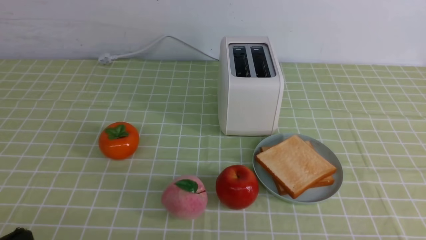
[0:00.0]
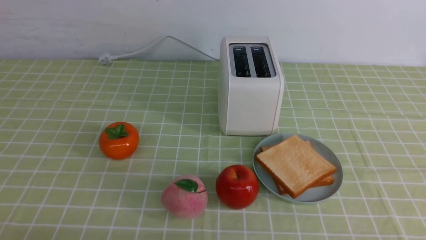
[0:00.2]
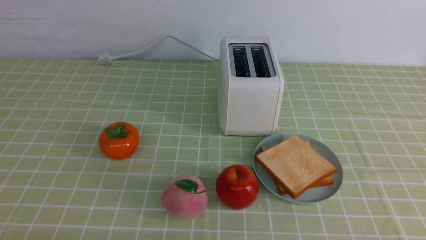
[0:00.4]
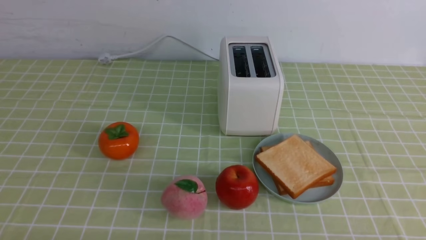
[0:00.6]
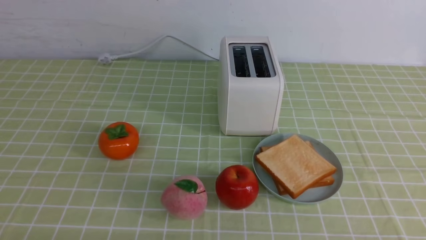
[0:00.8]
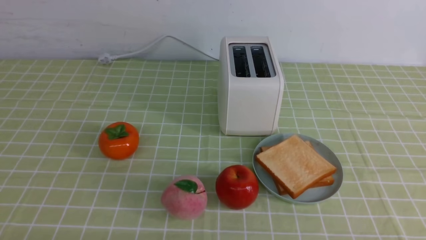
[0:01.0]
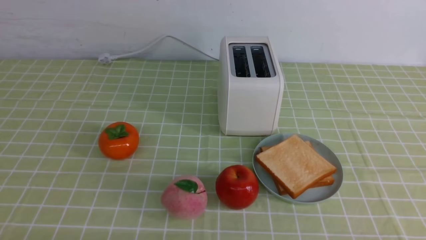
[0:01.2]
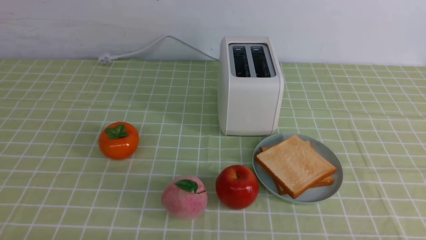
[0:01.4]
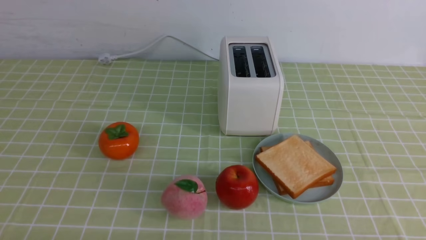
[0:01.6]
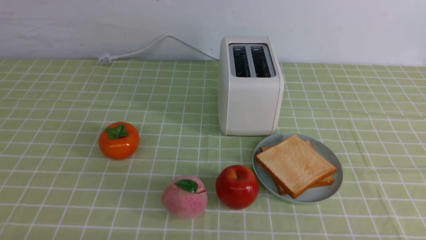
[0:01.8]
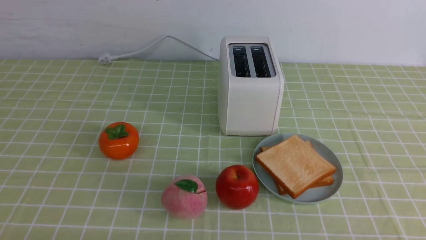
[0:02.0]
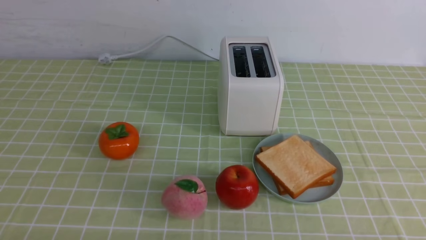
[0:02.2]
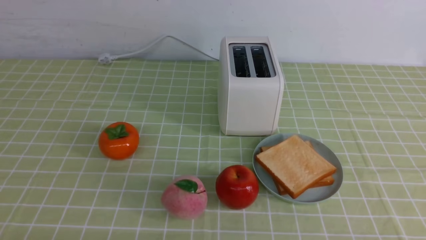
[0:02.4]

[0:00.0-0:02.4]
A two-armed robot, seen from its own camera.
Task of the whole recording: take toasted bread from bread machine on green coffee tablecloth place on plate.
0:01.2 to 0:02.4: Both grippers stay about where they are.

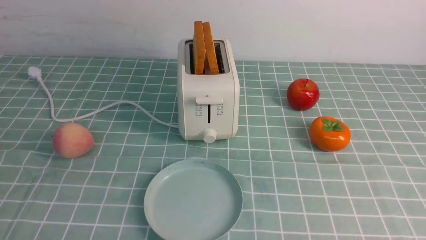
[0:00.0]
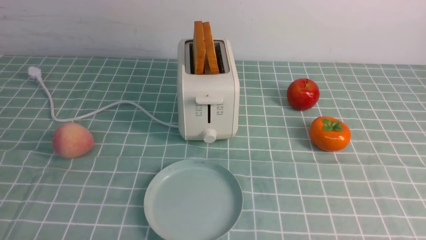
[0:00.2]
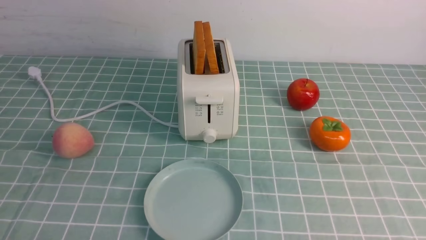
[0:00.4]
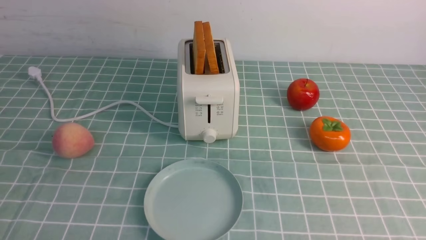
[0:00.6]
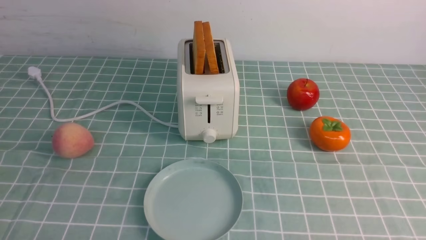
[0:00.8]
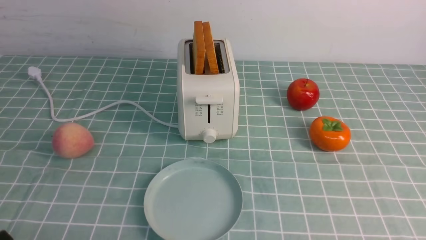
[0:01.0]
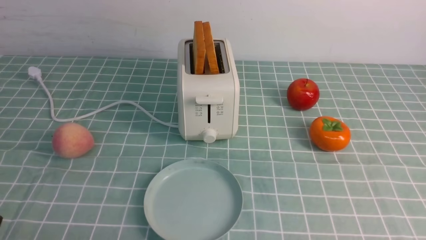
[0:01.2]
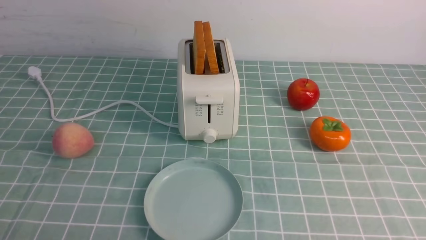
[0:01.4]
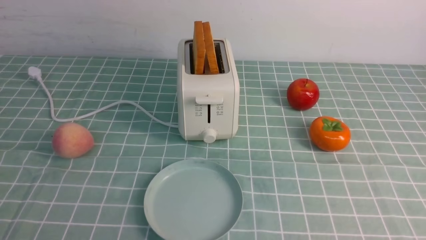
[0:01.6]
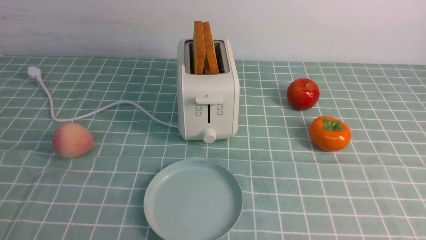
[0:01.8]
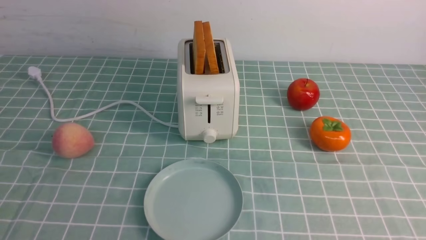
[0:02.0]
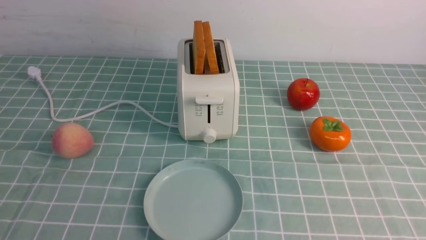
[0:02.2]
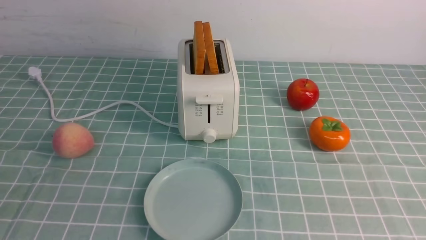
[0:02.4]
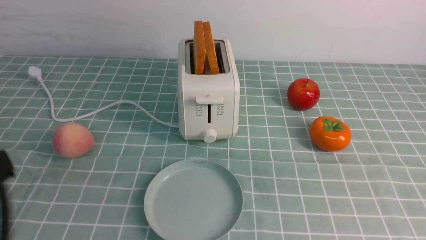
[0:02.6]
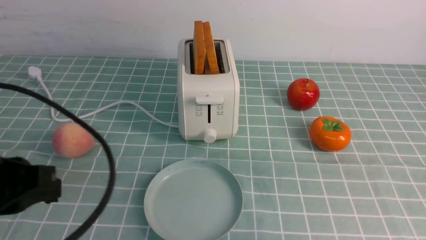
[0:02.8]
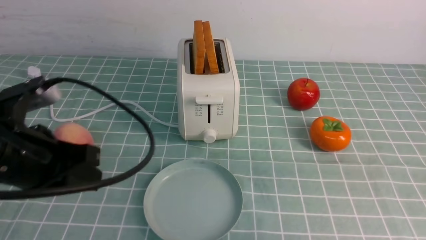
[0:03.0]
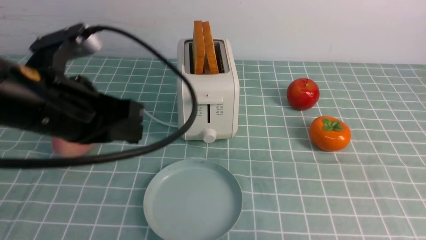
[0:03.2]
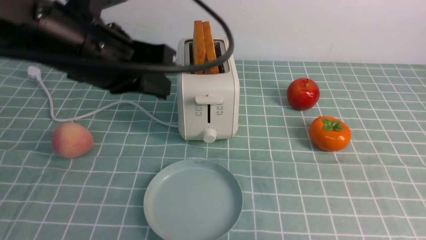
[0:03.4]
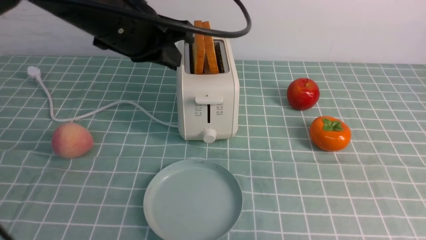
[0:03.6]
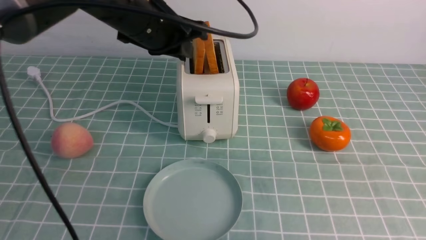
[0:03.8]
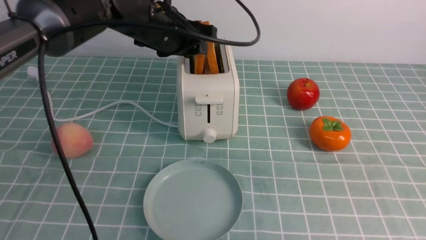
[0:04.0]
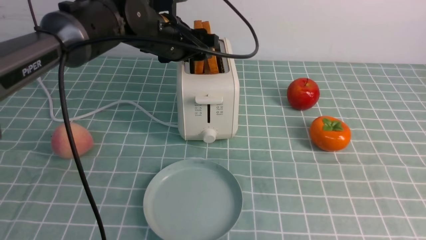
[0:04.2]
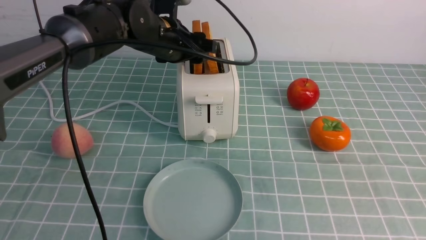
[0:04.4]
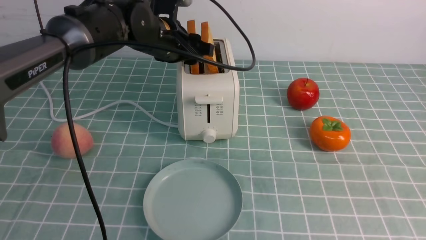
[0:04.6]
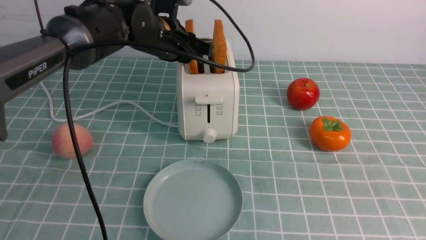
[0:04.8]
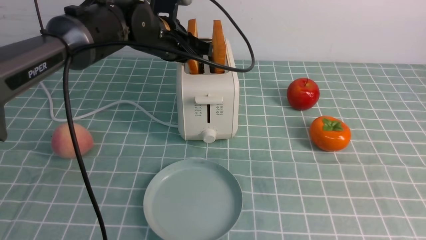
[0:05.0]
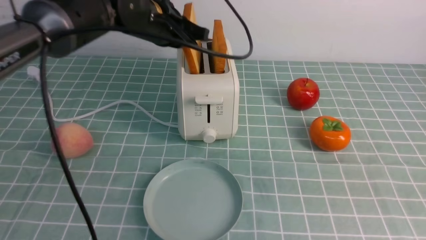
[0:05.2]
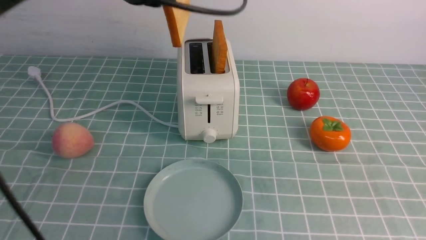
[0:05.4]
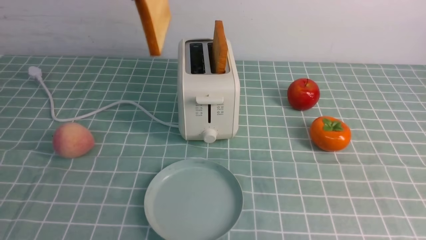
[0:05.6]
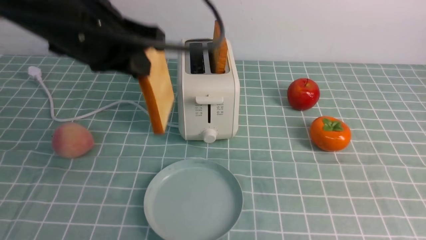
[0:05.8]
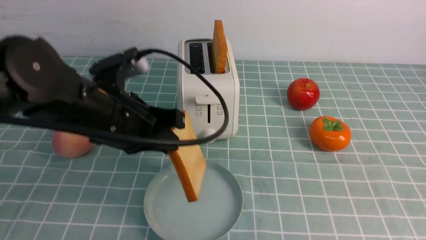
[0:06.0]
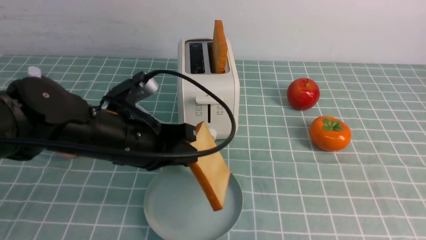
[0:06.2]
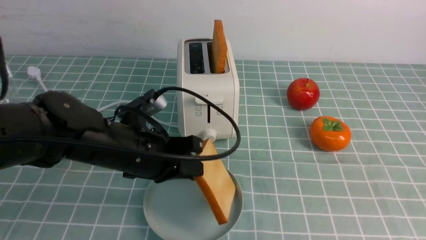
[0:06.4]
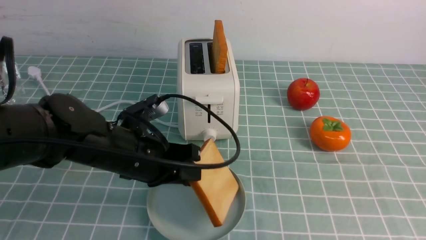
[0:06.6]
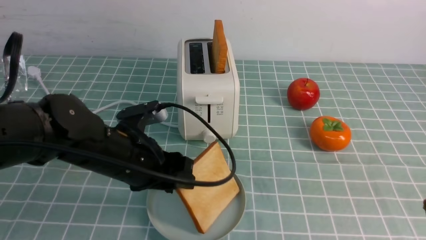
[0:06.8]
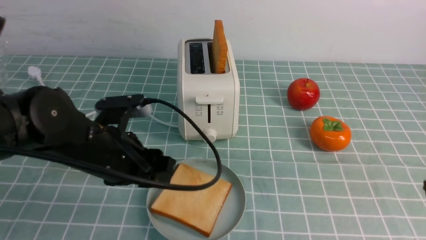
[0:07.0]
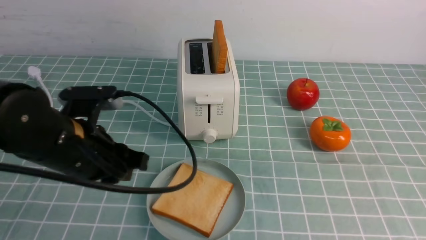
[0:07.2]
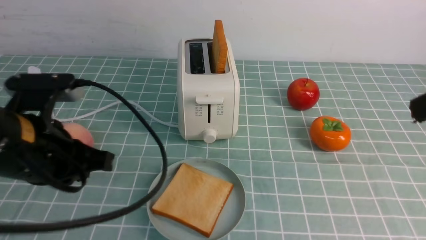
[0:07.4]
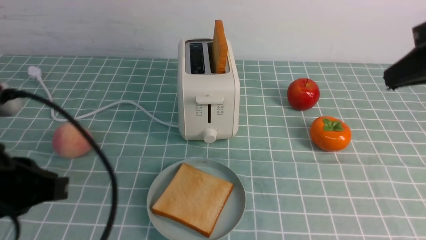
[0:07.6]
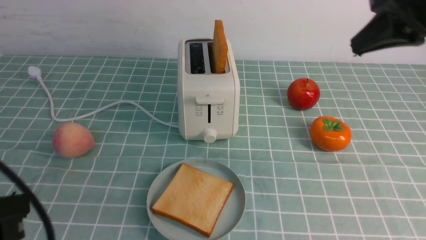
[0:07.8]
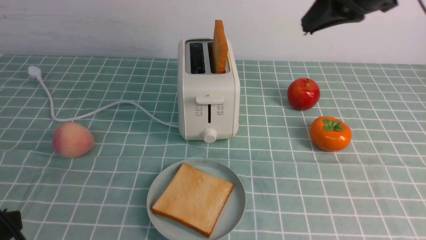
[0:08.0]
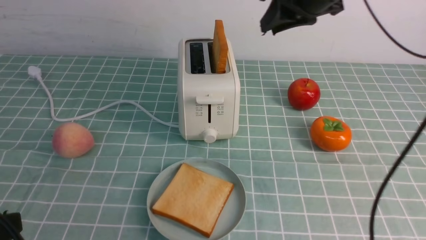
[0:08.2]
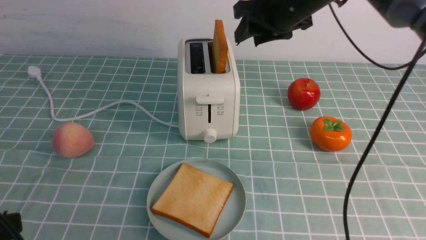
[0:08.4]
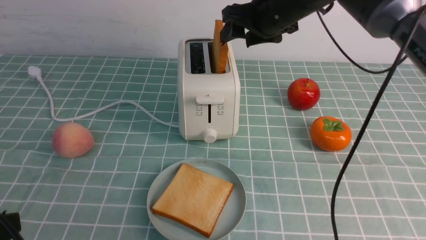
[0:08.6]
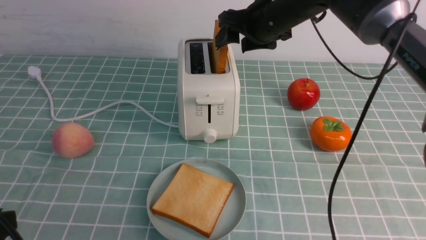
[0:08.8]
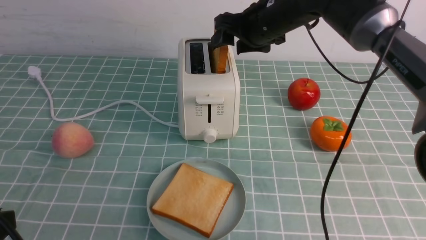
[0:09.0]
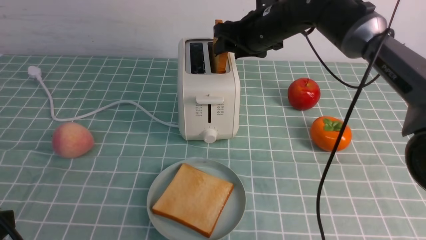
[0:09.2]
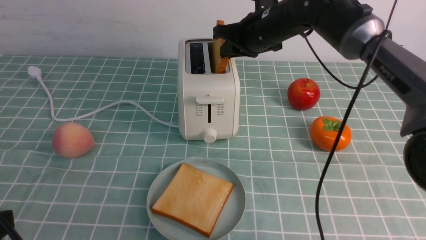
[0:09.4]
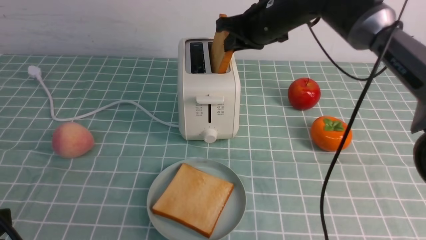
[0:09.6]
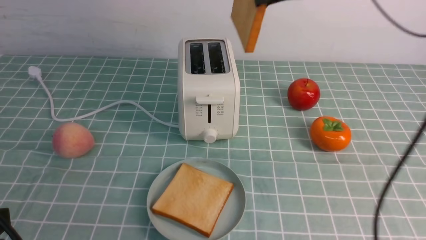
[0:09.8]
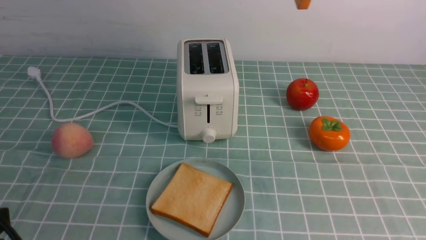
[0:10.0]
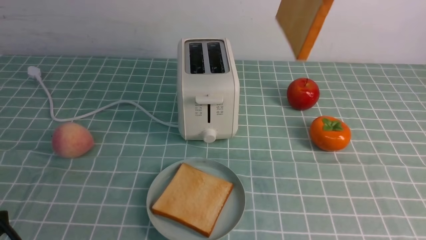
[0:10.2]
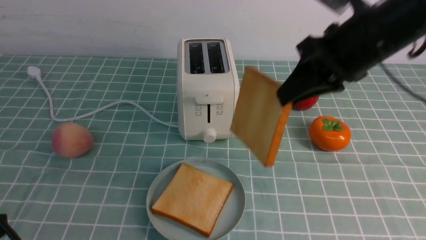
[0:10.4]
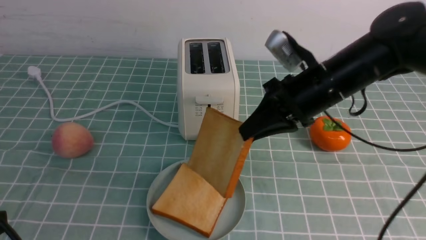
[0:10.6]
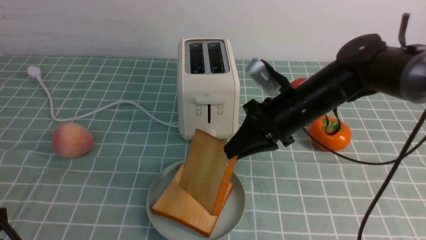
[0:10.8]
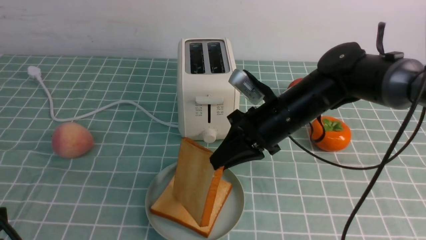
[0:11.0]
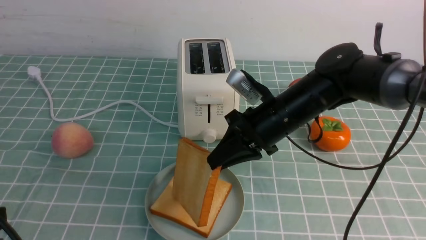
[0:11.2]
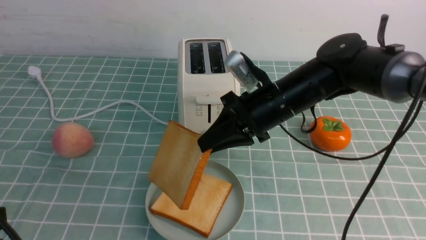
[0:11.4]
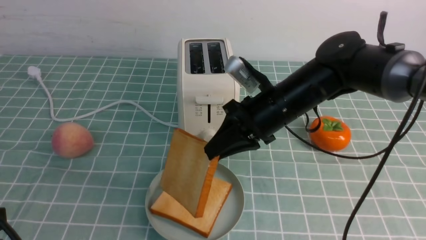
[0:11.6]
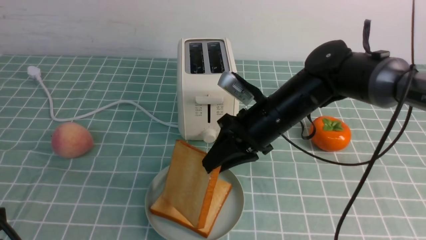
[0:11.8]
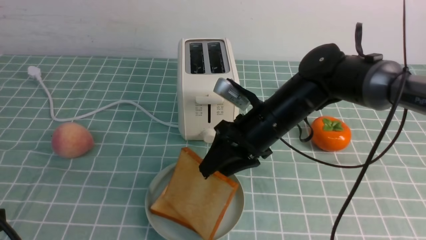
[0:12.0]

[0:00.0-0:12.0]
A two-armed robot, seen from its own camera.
Task of the whole recording: take toasted bread from bread machine on blue coffee table place on plate.
Step, 0:00.0 to 0:05.2: use the left arm to take out a slice of bread.
Step, 0:05.4 to 0:07.0: use the left arm to put a slice of bread into the empty plate.
Step, 0:07.2 to 0:09.6: use the right arm to take out a slice of bread.
0:01.6 to 0:03.0: The left gripper travels forward and upward by about 15 cm, and closes.
0:03.0 to 0:04.4: The left gripper shifts some 30 cm forward and to the right, and opens up.
0:04.4 to 0:06.0: The left gripper is displaced backward by about 15 cm, and closes up.
0:06.0 to 0:07.6: The right gripper travels upward and forward by some 10 cm. The left gripper goes about 15 cm backward and to the left, travels downward and back again, approximately 10 cm each way, and opens, then closes once more.
0:07.6 to 0:09.0: The left gripper shifts about 10 cm backward; the right gripper is displaced forward and to the left by about 30 cm, and opens up.
0:09.0 to 0:10.4: The right gripper moves backward, to the right and upward, some 15 cm, and closes its fingers.
0:10.4 to 0:12.0: The right gripper is displaced downward and to the left by roughly 20 cm, and opens up.

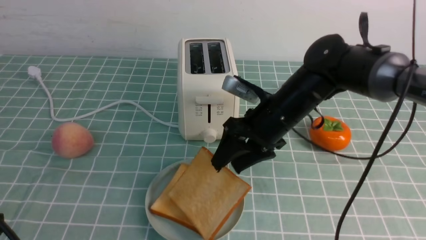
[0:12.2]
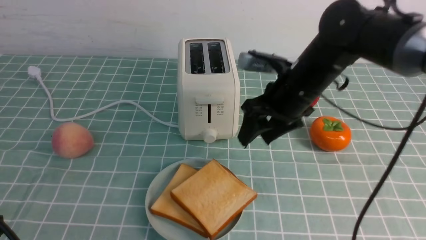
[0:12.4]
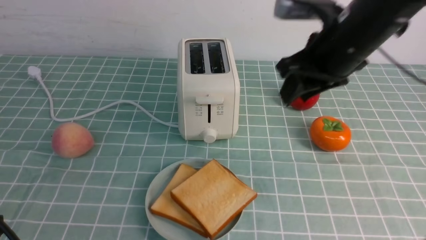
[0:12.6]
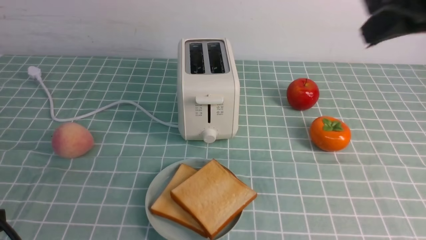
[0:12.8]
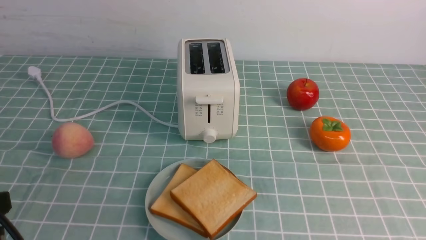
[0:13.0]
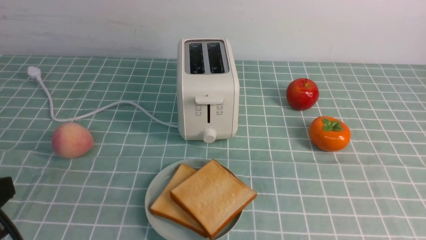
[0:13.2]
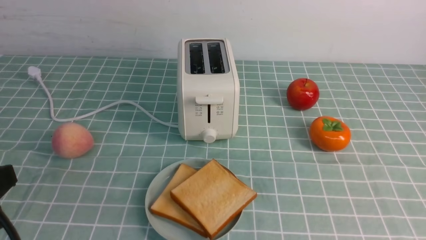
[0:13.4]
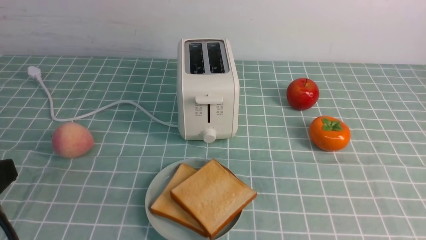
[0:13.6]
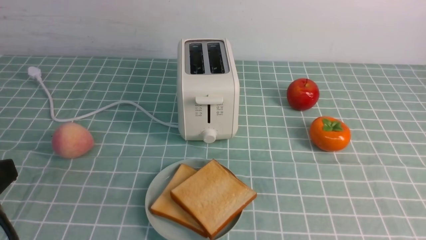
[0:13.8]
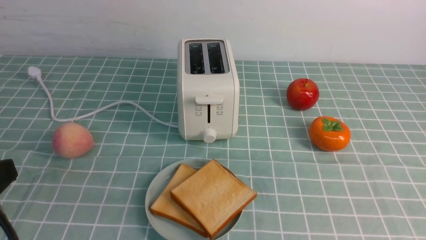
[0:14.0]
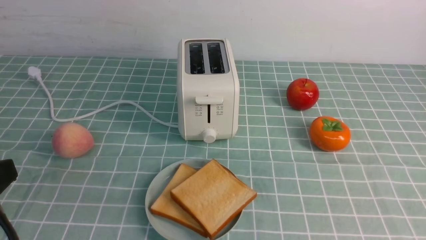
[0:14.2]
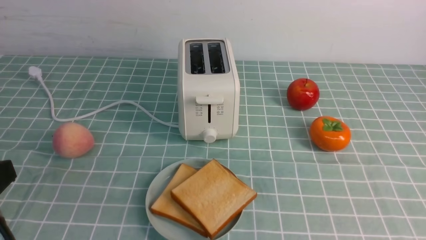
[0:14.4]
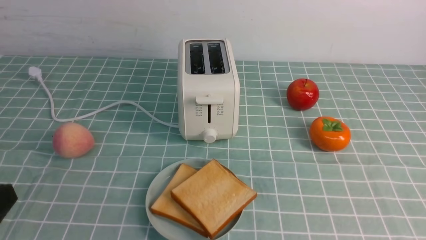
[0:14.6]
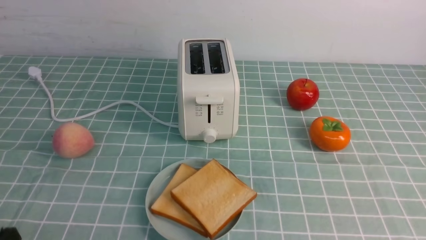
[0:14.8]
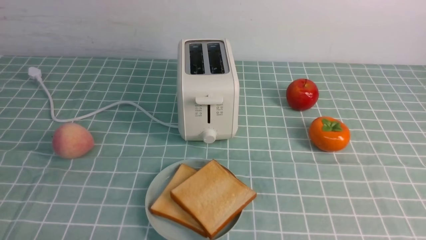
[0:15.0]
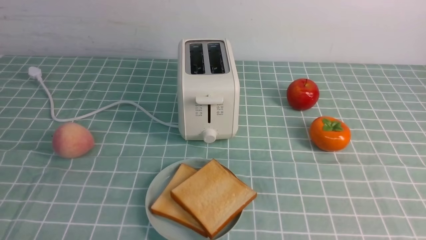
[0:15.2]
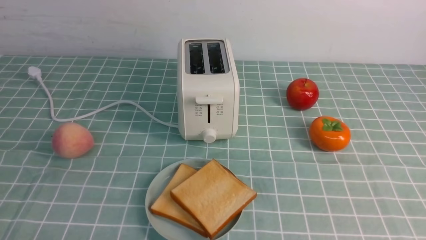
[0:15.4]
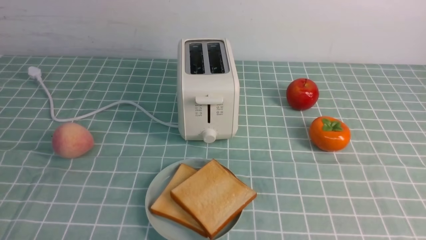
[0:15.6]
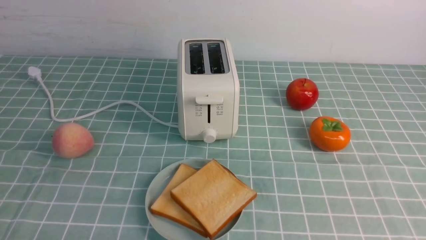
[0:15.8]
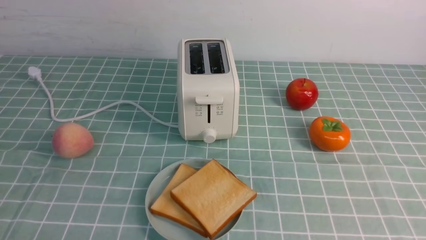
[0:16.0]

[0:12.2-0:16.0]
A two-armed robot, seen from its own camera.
Task of the whole recording: take toasted bread from bread machine on blue coffee table place on plate.
0:12.2 to 0:13.4: The right gripper heads backward, to the right and upward, covering roughly 40 cm, and closes up.
0:13.4 to 0:14.8: The left gripper shifts approximately 5 cm downward.
